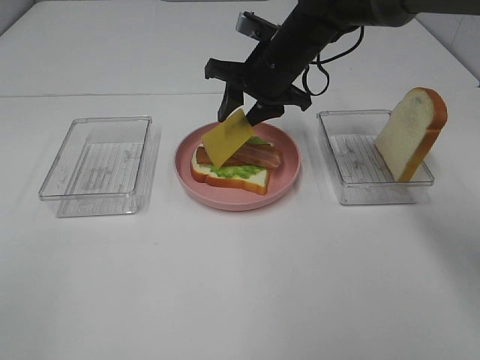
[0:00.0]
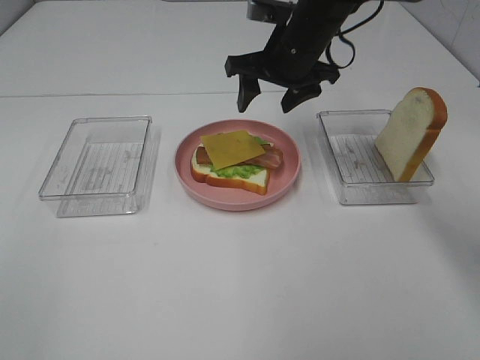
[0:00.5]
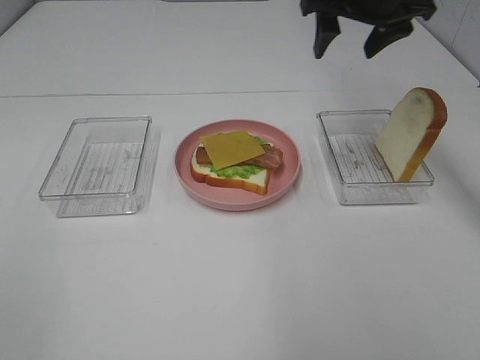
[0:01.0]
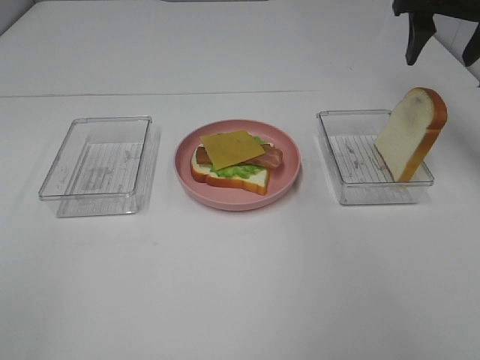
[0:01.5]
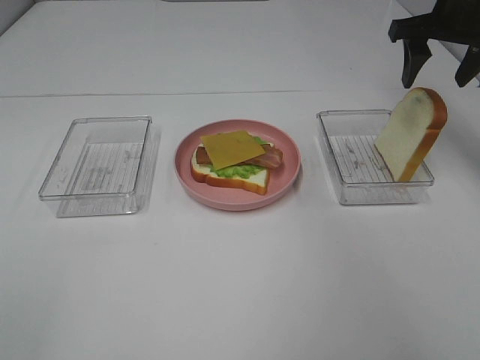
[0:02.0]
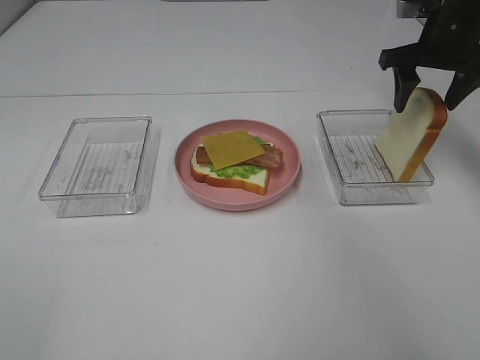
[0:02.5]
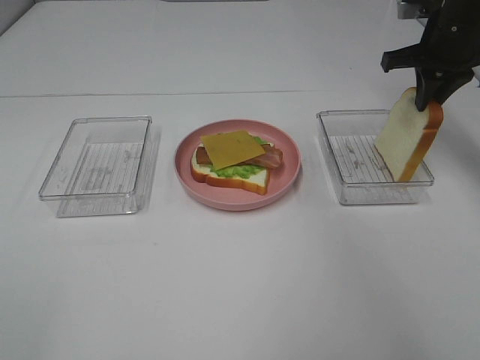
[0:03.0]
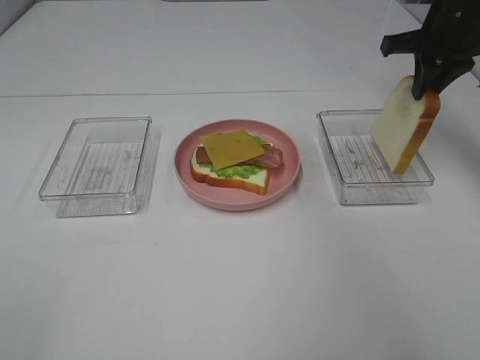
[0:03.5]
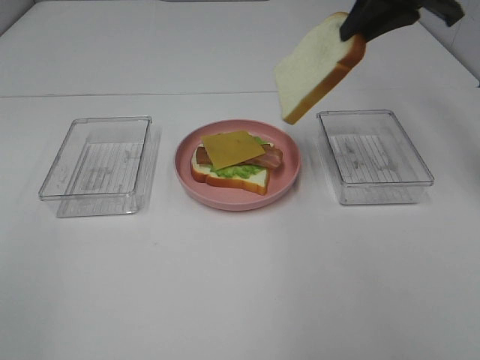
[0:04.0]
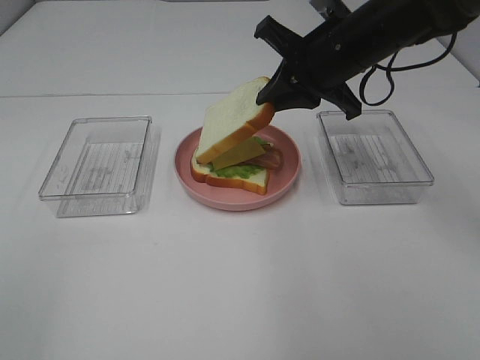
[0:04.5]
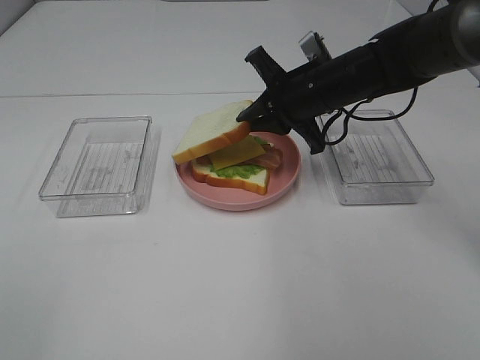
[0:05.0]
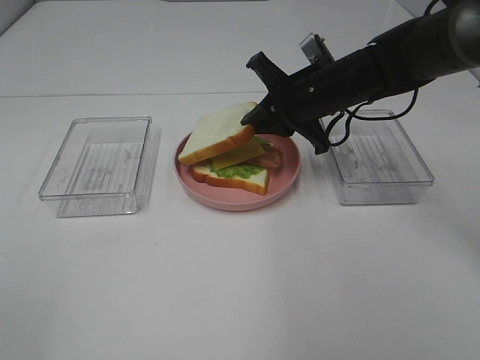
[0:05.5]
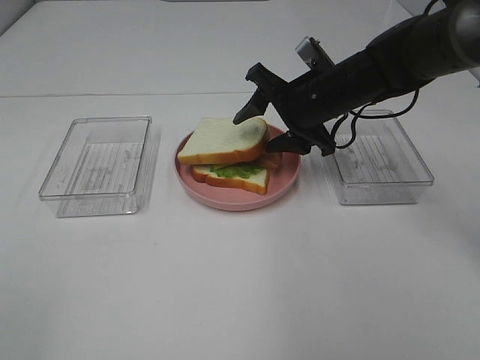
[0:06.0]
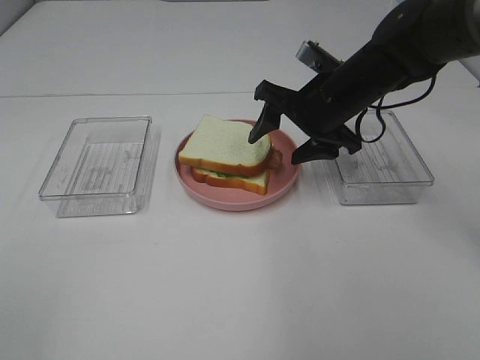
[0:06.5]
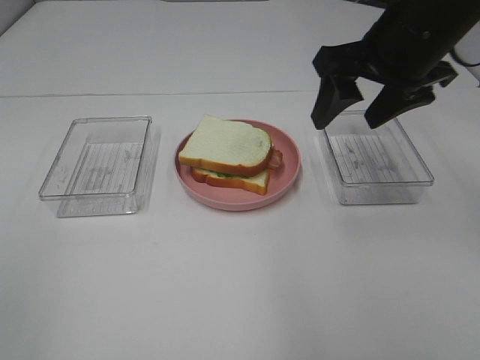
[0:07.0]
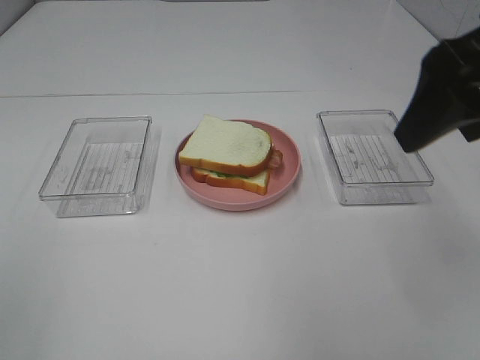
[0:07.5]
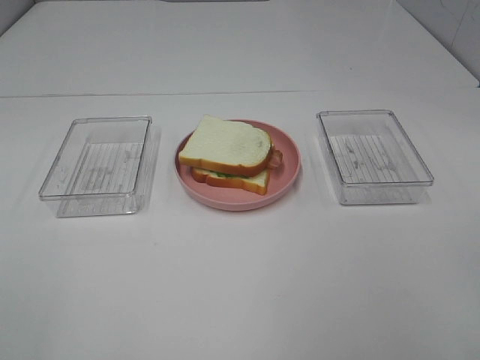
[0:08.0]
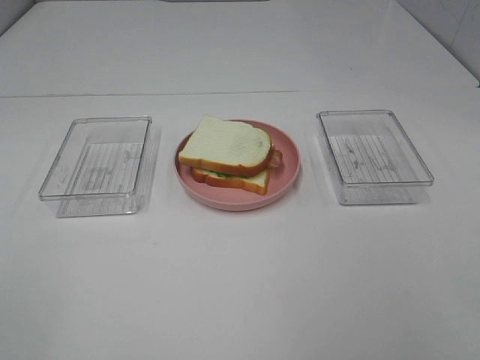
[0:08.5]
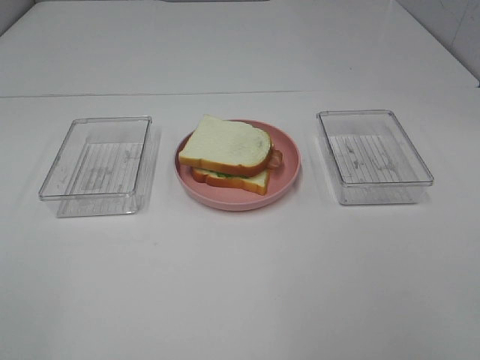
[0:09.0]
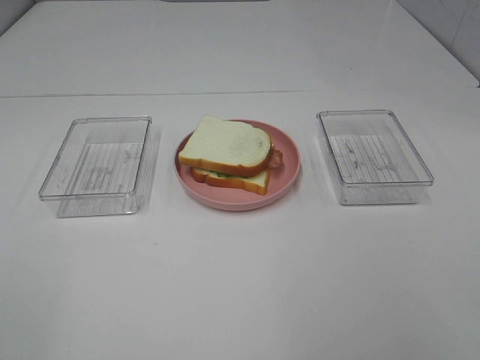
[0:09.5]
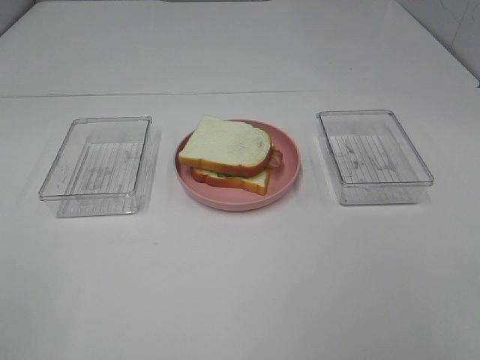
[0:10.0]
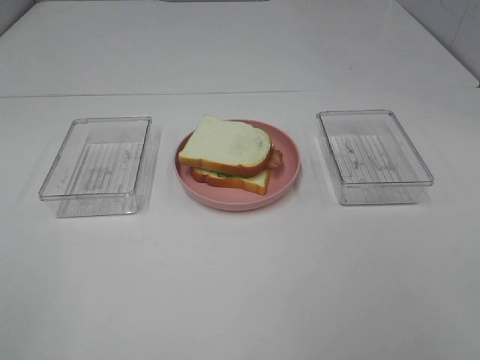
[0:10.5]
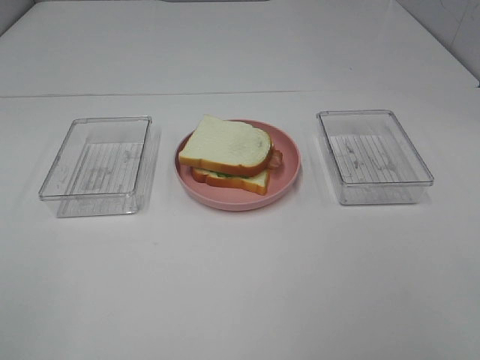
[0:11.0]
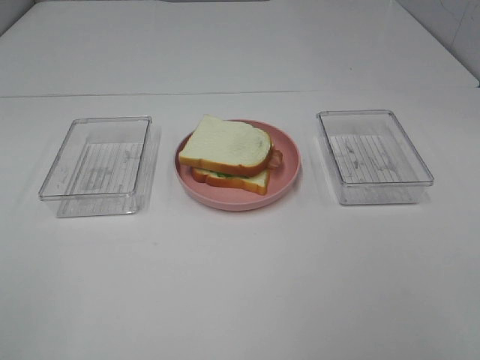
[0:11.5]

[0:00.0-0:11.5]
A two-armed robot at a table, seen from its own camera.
Task of the whole recording: Make sandwiches.
Step, 0:01.0 to 0:03.0: Right hand:grab the bread slice.
Step, 0:03.5 to 0:06.5: Right hand:place the bread slice on the cheese slice.
0:00.0 to 0:02.0: The right gripper is displaced to the right and upward by some 20 cm.
0:02.0 to 0:04.0: The right gripper heads to the left and upward, covering roughly 10 cm, and closes up.
0:04.0 to 0:06.0: The right gripper shifts some 15 cm downward, and opens its fingers.
0:06.0 to 0:07.5: The right gripper travels backward, upward and to the right by about 25 cm.
0:07.5 to 0:09.5: The right gripper moves backward, approximately 20 cm.

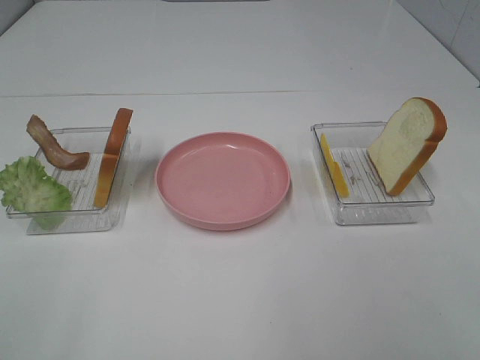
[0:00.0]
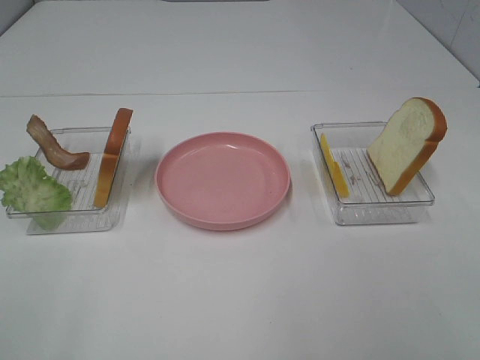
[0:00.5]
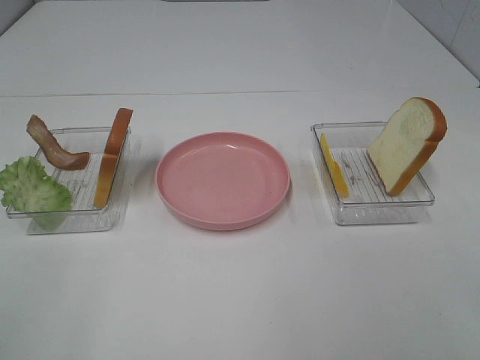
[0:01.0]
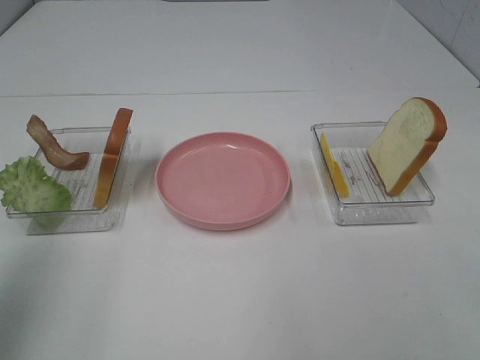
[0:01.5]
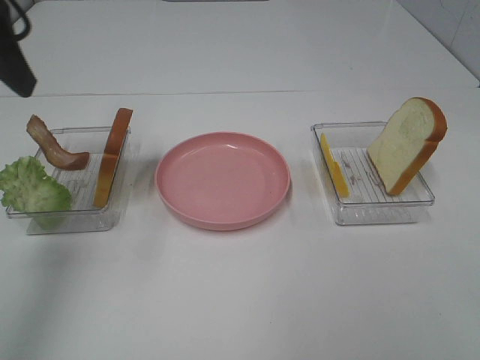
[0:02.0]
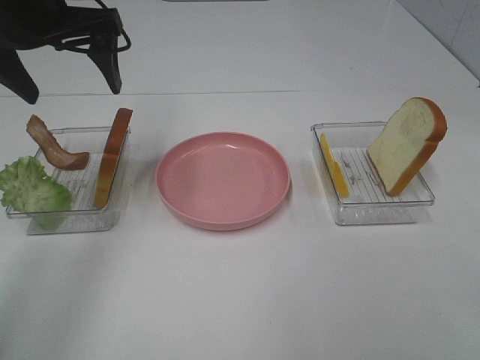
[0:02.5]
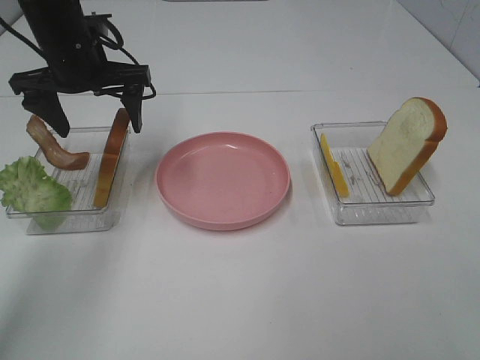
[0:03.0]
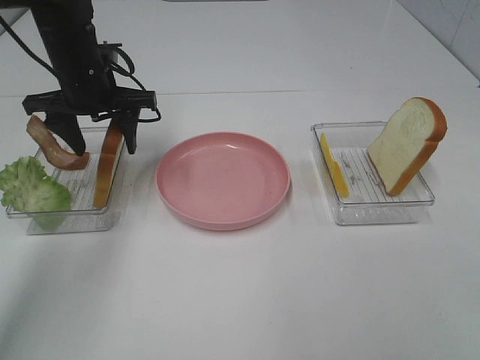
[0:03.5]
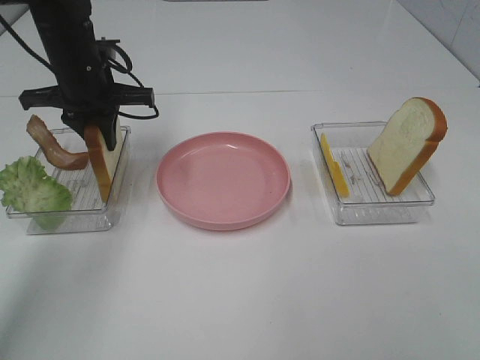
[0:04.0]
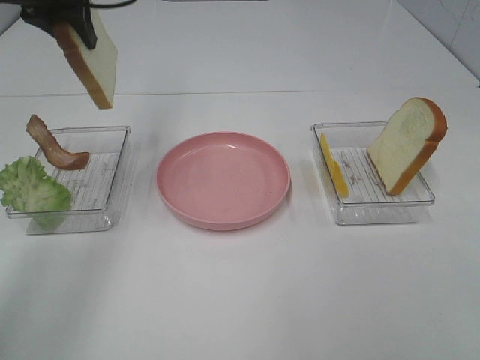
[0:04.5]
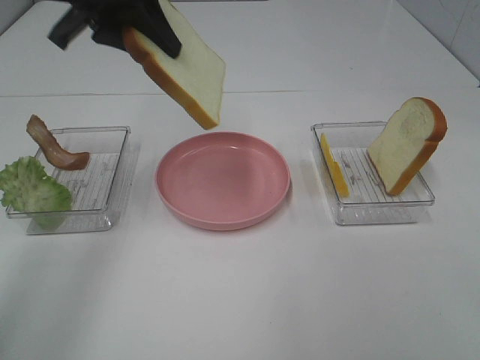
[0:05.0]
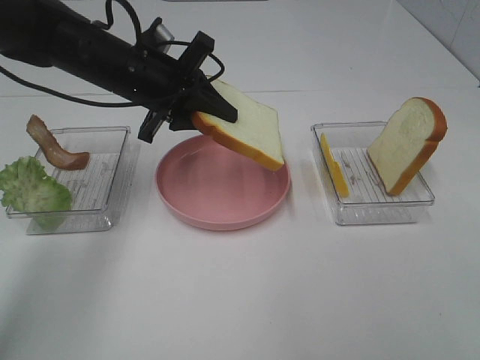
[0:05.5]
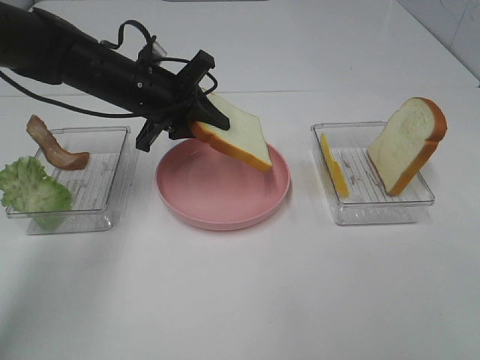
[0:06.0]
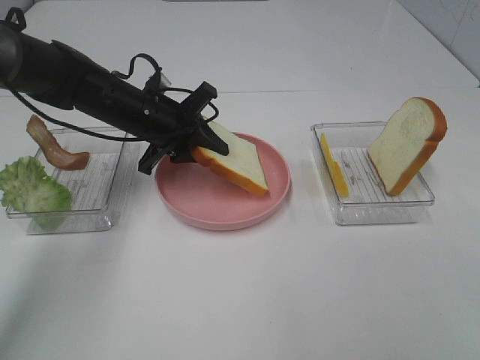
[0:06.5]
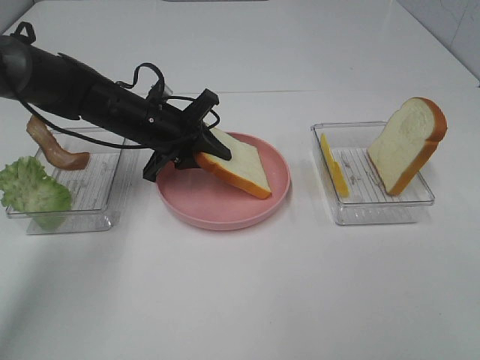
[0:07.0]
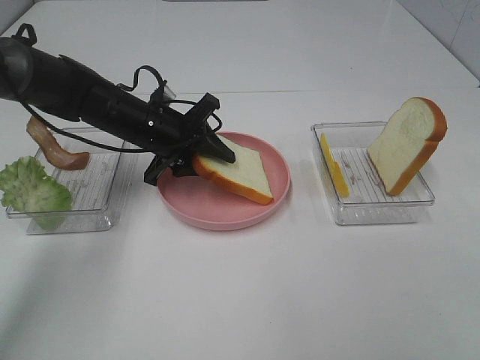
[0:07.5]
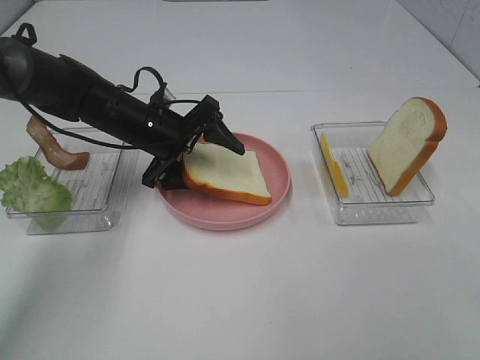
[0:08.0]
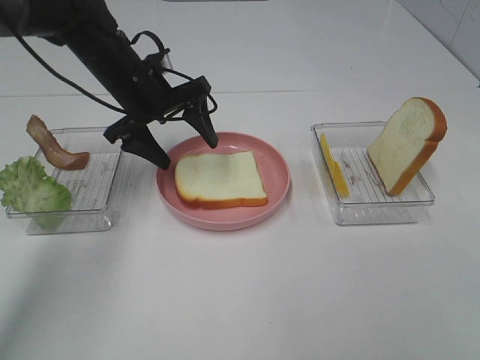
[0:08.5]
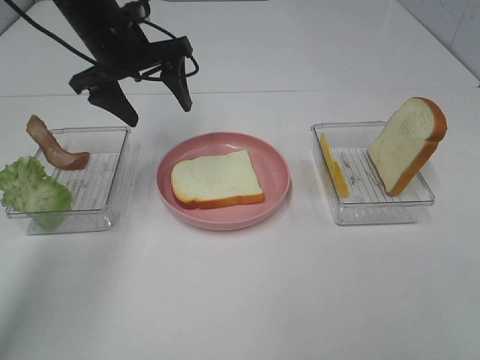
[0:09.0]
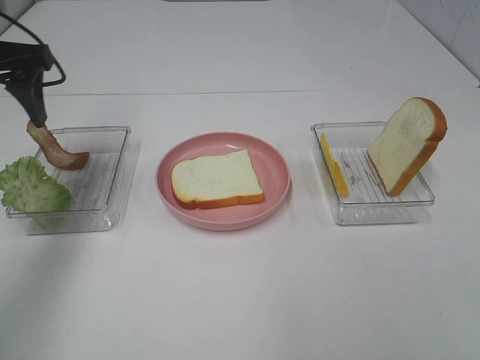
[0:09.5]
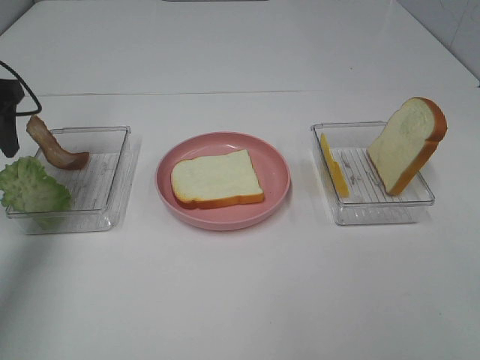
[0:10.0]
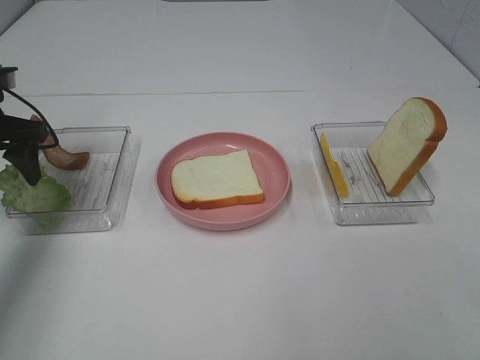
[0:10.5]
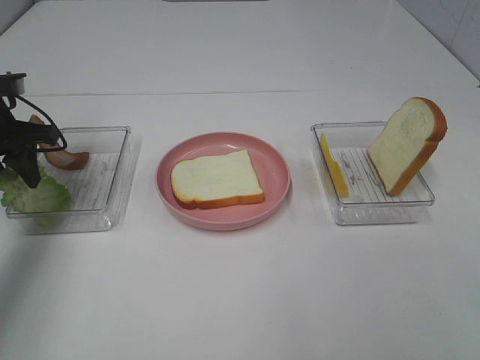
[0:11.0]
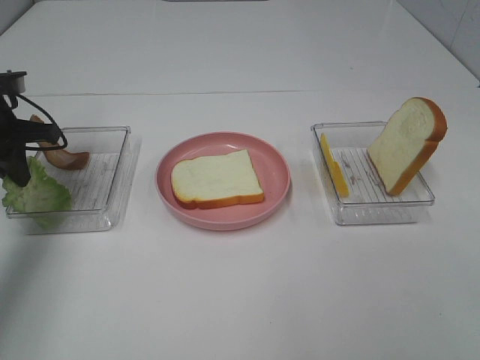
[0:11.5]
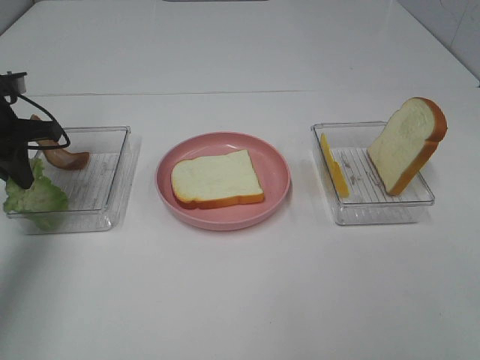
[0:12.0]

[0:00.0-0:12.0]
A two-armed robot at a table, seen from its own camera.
Task of the whole recording: Make sandwiches.
Step, 0:00.0 to 0:03.5: Left hand:grab the bread slice.
Step, 0:04.0 to 0:08.5: Left hand:Place the bread slices on the plate.
Step, 0:09.0 to 0:11.5: Left hand:grab the lettuce slice.
0:00.0 to 0:02.0: The left gripper moves forward, about 30 cm.
0:02.0 to 0:04.0: The left gripper goes roughly 25 cm forward and downward, and closes its fingers.
0:04.0 to 0:06.0: The left gripper travels to the right by about 5 cm, and reaches approximately 15 cm upward, then returns.
0:06.0 to 0:08.0: The left gripper moves downward, roughly 5 cm, and opens up.
0:08.0 to 0:10.0: The left gripper is displaced to the left and upward by some 25 cm.
0:10.0 to 0:12.0: The left gripper moves downward, roughly 5 cm, and closes its fingers.

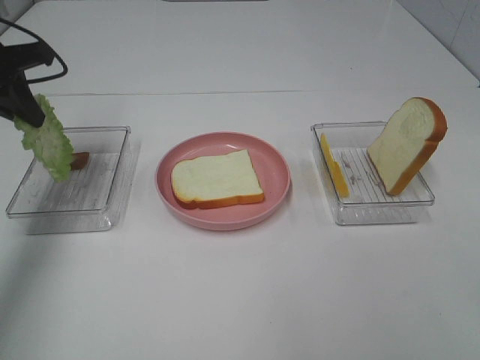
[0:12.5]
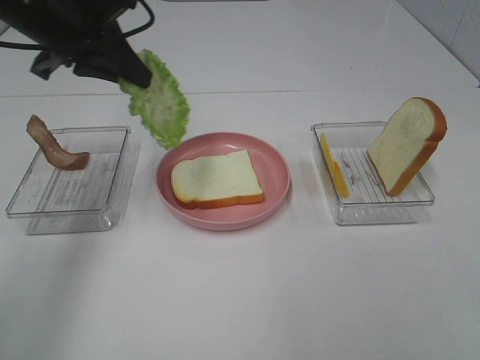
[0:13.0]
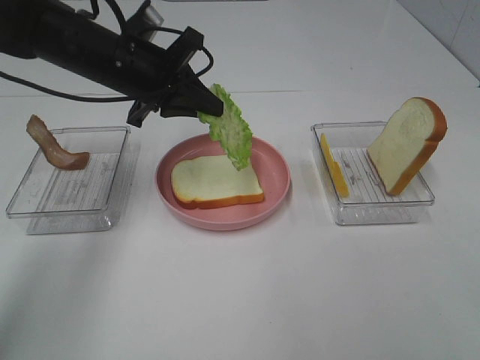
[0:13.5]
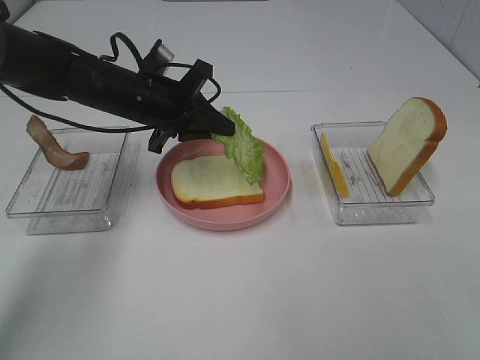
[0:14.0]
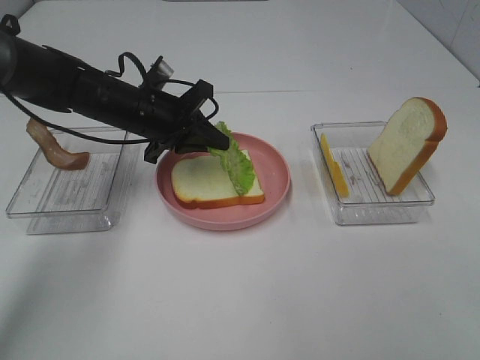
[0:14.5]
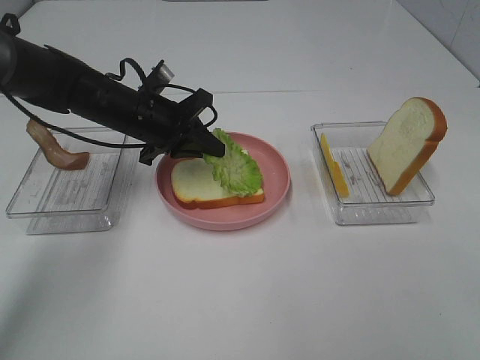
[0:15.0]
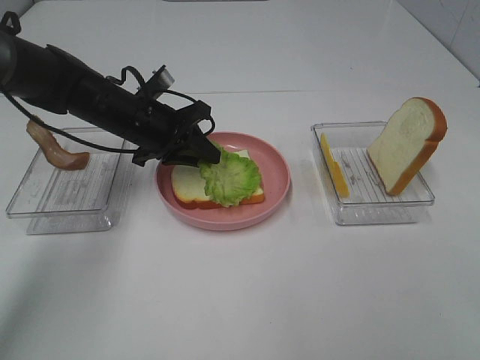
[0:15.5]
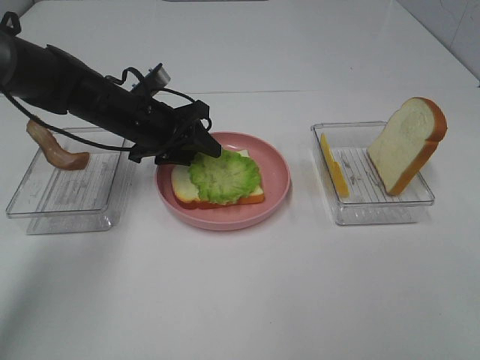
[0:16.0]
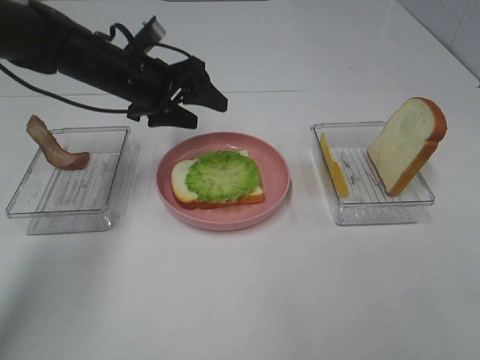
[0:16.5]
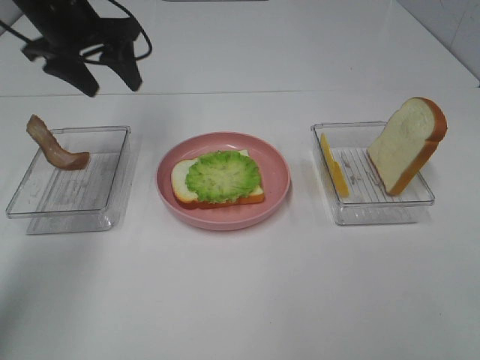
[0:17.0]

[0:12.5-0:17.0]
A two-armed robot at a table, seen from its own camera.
Task of the whole recording: Make sandwiches.
Step, 0:12.5 to 0:16.5: Left hand:Place the lettuce slice on the bread slice.
0:12.5 to 0:14.5: The left gripper moves to the right and downward, roughly 20 cm.
0:14.5 to 0:17.0: The left gripper shifts approximately 15 cm upward and to the left, and opens up.
